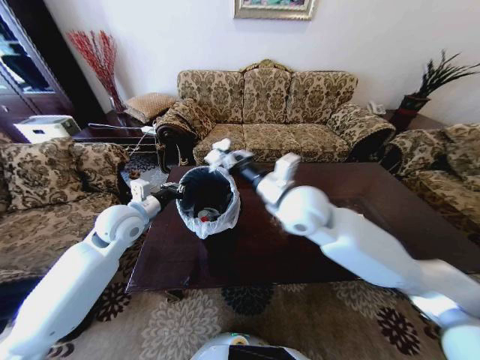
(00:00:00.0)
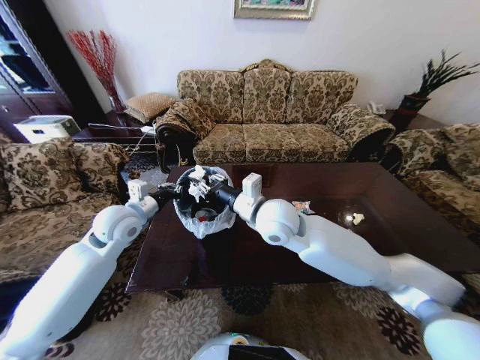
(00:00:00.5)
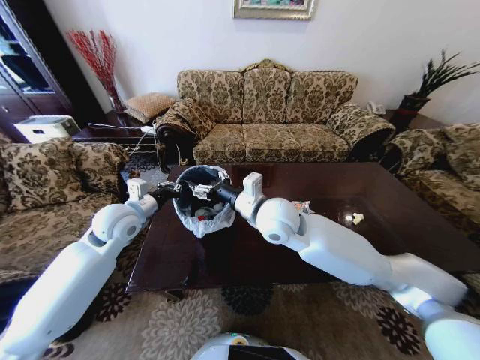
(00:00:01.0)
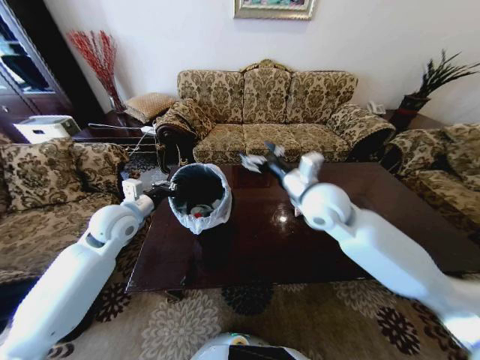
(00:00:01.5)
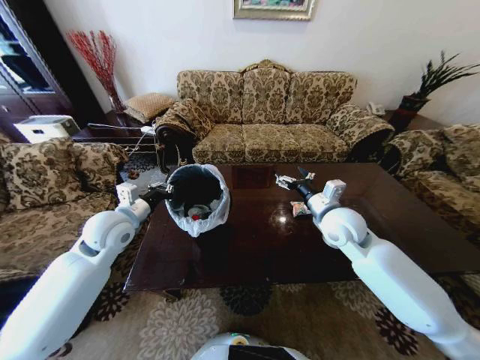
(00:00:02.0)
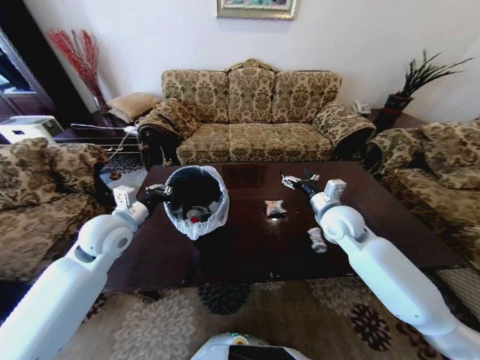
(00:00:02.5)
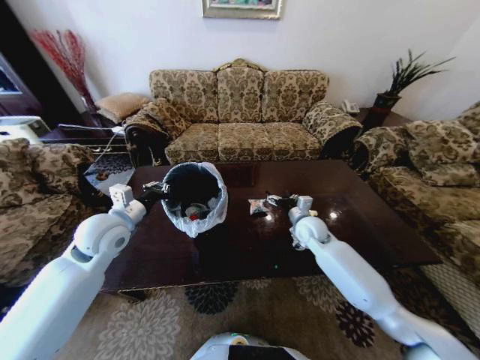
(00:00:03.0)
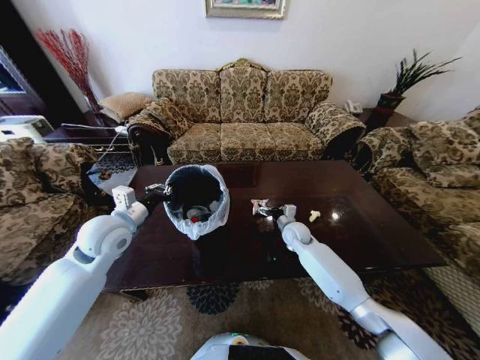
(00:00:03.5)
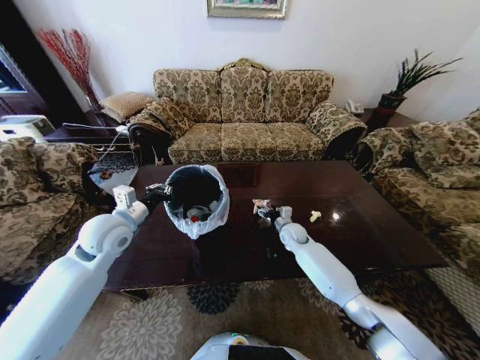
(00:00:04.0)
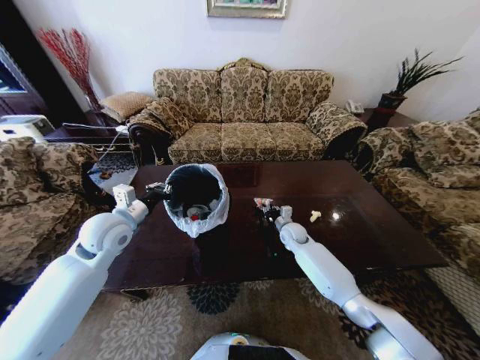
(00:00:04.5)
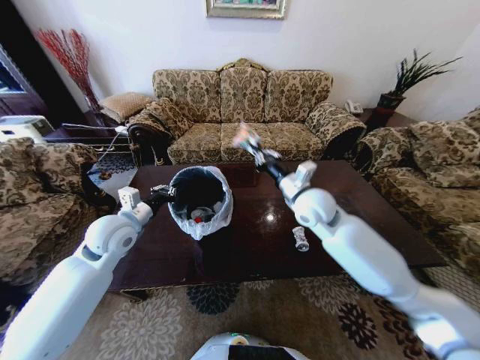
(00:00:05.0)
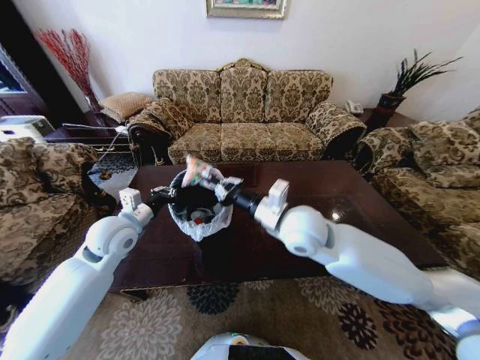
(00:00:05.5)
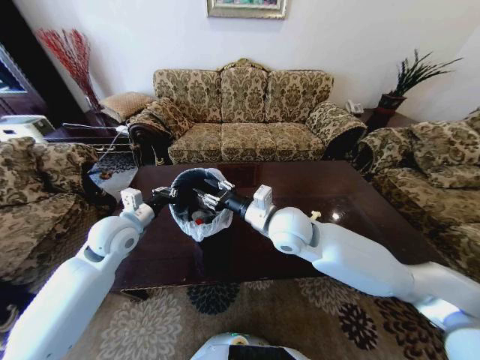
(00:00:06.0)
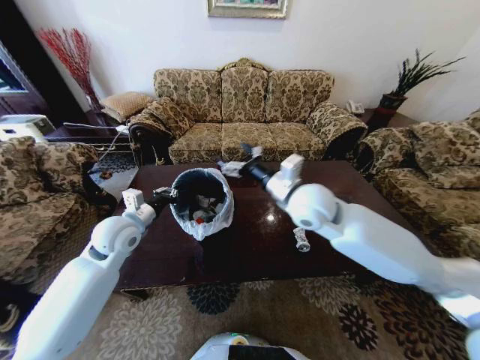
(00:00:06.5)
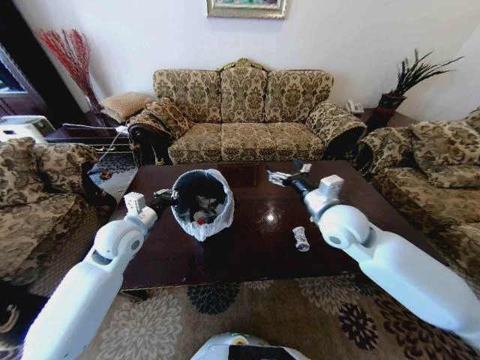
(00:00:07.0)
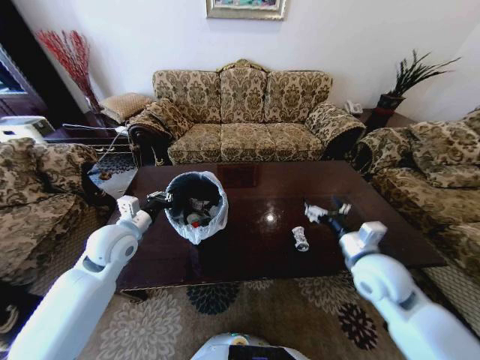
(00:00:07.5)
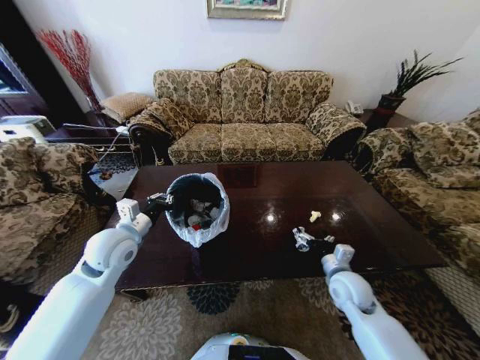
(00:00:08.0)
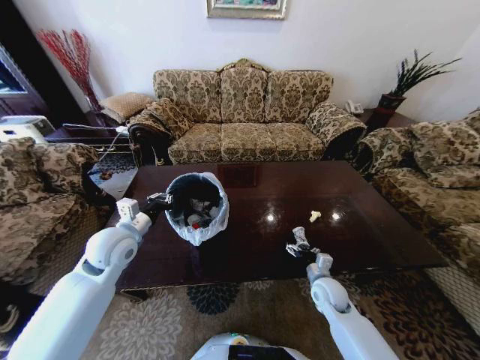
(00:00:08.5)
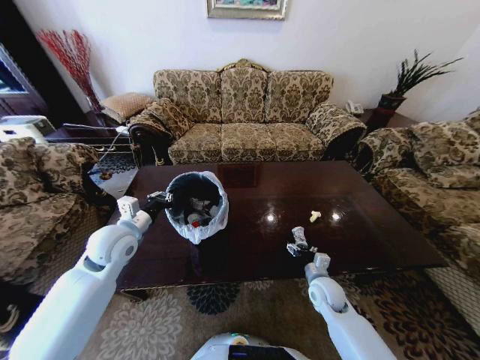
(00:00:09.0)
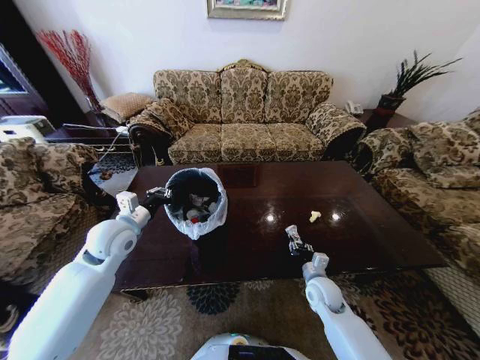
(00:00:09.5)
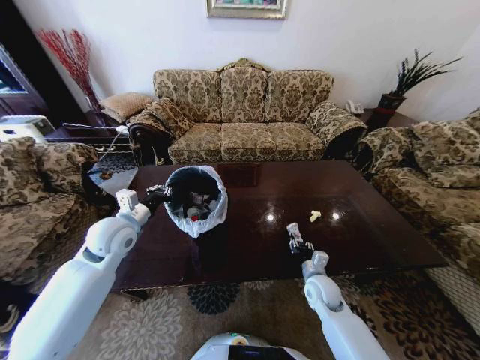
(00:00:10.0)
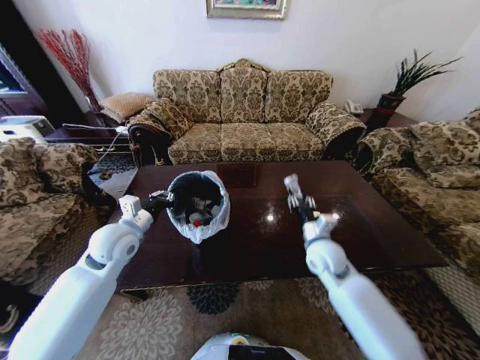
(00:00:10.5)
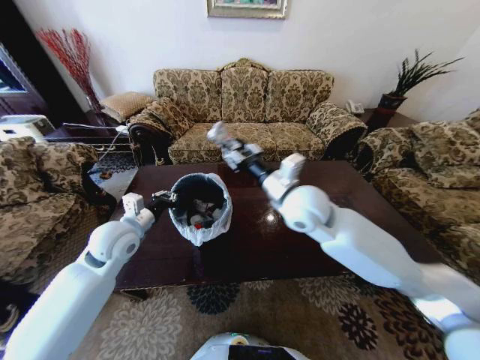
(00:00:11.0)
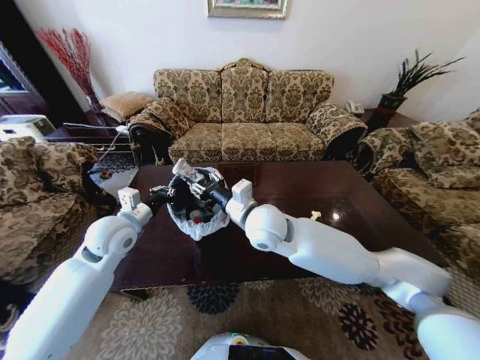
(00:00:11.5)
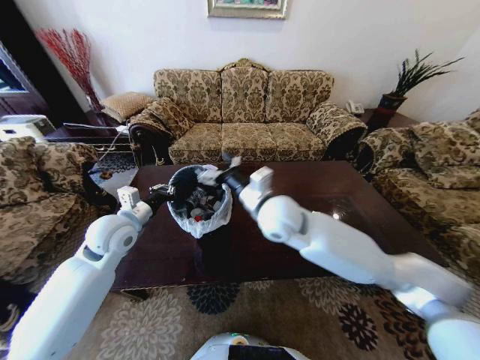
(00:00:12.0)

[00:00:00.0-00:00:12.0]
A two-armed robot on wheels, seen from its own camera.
Task of the whole recording: Move to the front of the table and place the trash on the table into the trash bin.
00:00:00.0 to 00:00:02.0: The right gripper goes approximately 15 cm to the right and downward, and opens.
00:00:02.0 to 00:00:04.0: The right gripper moves downward and forward, roughly 25 cm.
00:00:04.0 to 00:00:06.0: The right gripper goes roughly 30 cm upward, backward and to the left, and closes its fingers.
00:00:06.0 to 00:00:08.0: The right gripper travels to the right and downward by some 30 cm, and opens.
00:00:08.0 to 00:00:10.0: The right gripper shifts approximately 5 cm downward, and closes up.
00:00:10.0 to 00:00:12.0: The right gripper moves upward and to the left, roughly 35 cm, and opens its fingers.

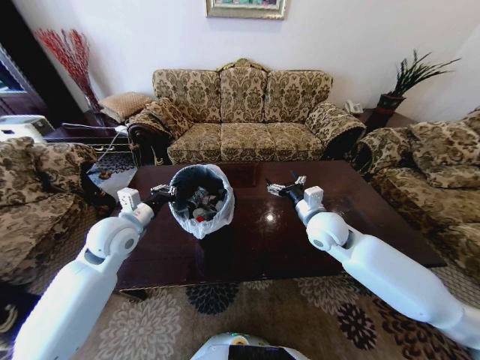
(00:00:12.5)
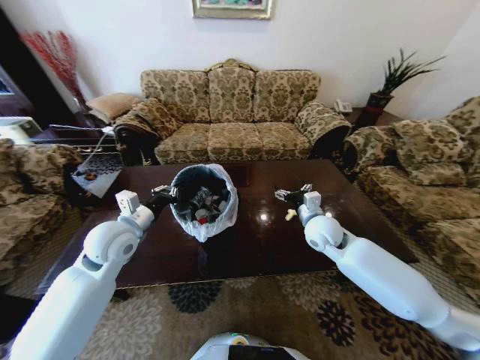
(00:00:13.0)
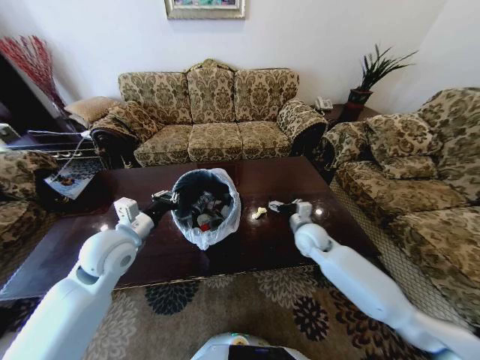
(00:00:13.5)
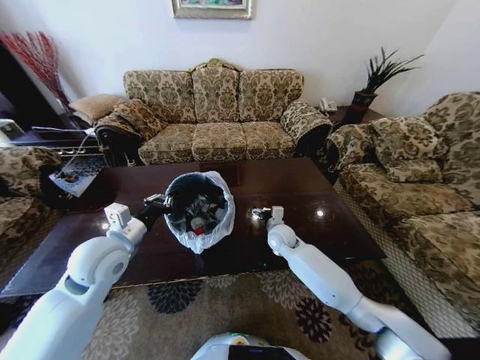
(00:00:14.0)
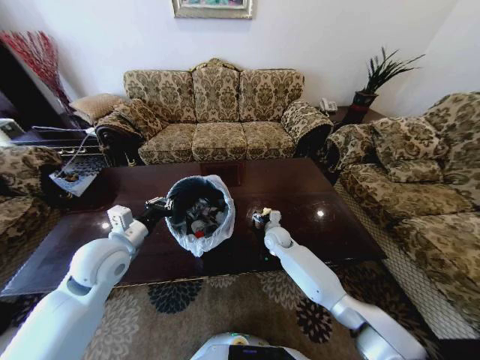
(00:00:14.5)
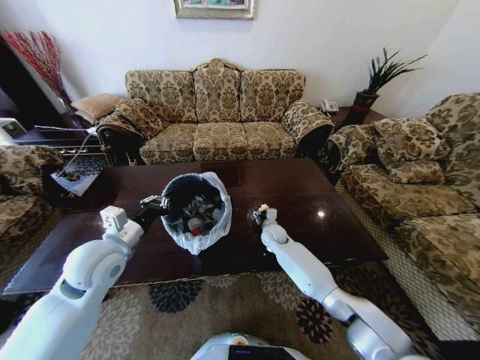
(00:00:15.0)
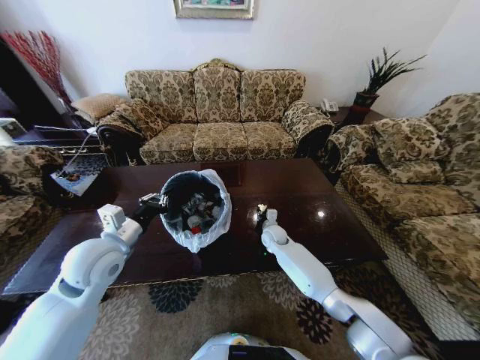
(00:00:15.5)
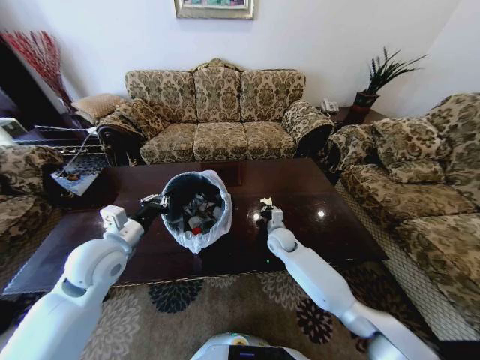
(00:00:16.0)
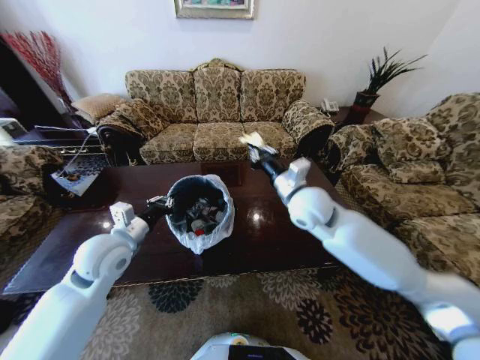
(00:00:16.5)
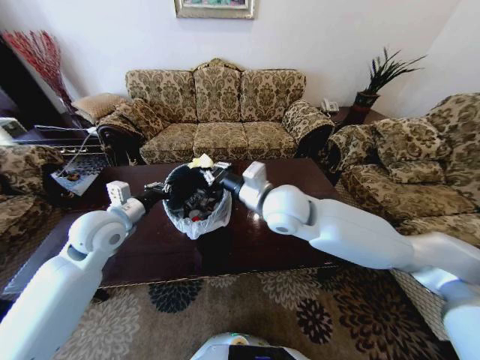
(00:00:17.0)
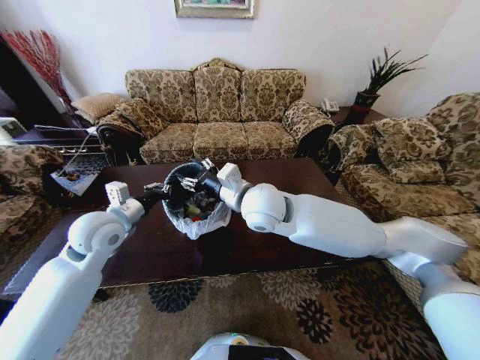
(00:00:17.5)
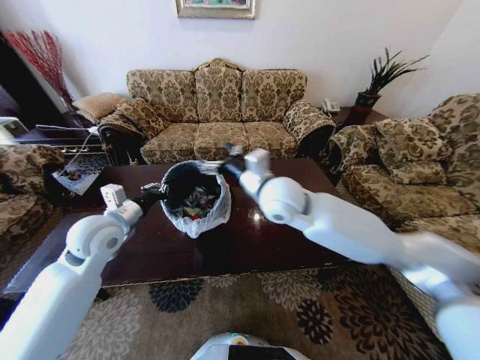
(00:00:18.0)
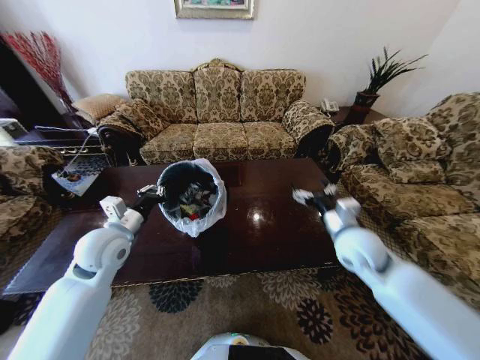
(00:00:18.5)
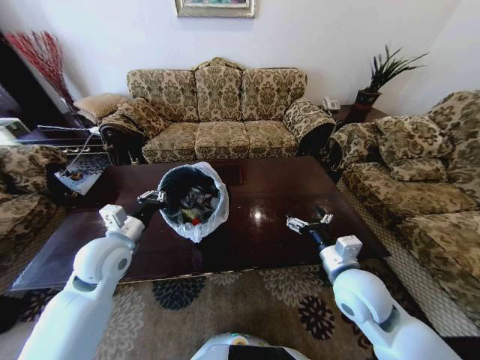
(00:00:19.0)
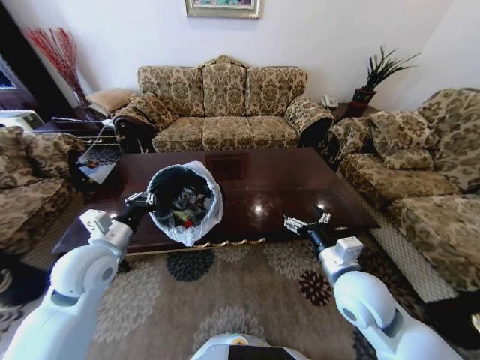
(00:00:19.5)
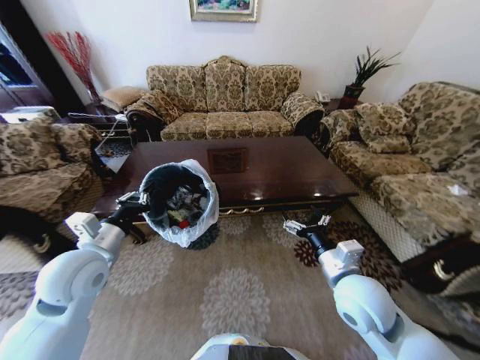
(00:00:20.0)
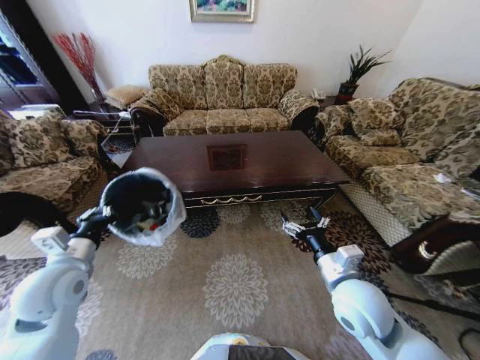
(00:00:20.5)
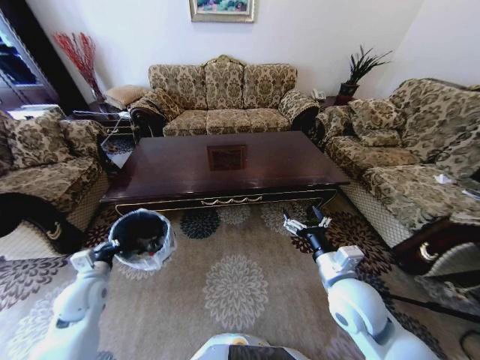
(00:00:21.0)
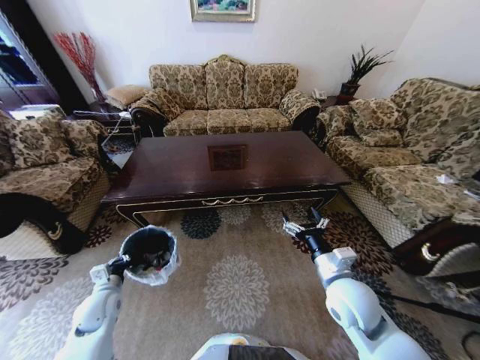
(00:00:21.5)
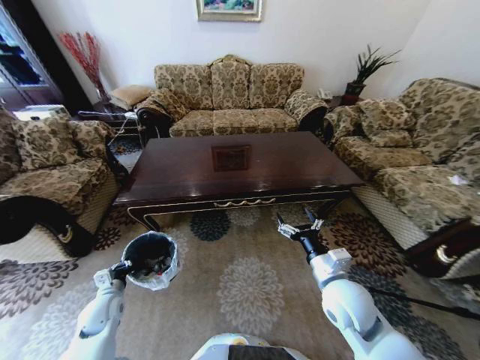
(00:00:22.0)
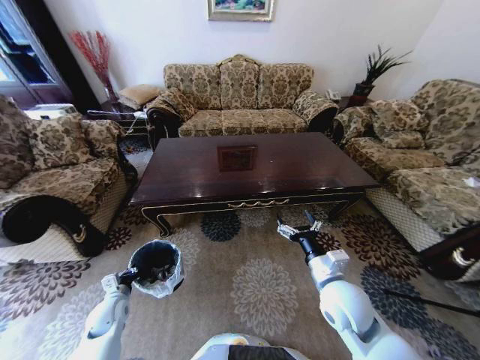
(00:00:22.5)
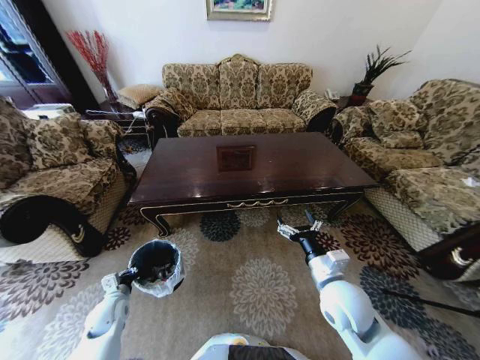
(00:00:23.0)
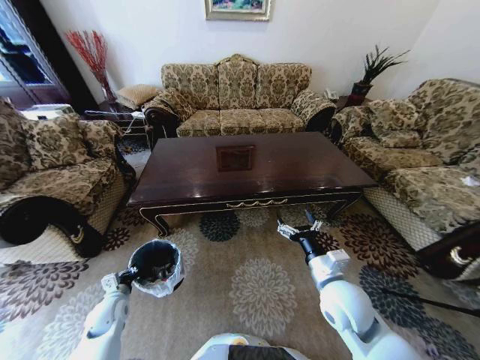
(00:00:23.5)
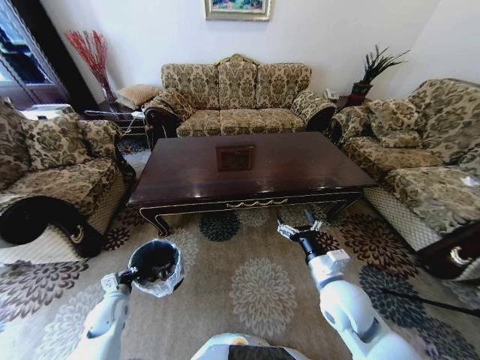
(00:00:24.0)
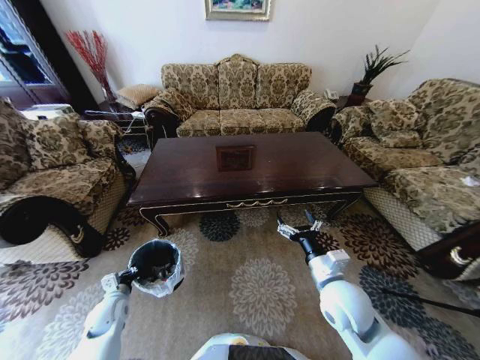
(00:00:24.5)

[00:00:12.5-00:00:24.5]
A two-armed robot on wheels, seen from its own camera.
Task of the whole recording: Move to the front of the table and place the trash on the table into the trash bin.
00:00:12.5 to 00:00:14.5: The right gripper travels downward, forward and to the left by some 25 cm, while the left gripper moves backward, about 5 cm.
00:00:14.5 to 00:00:16.5: The right gripper travels upward by roughly 25 cm, and closes its fingers.
00:00:16.5 to 00:00:18.5: The right gripper travels to the right, downward and backward by roughly 15 cm, and opens.
00:00:18.5 to 00:00:20.5: The right gripper goes approximately 10 cm backward, while the left gripper travels backward and to the left by some 10 cm.
00:00:20.5 to 00:00:22.5: The left gripper shifts roughly 25 cm downward.
00:00:22.5 to 00:00:24.5: The two grippers keep their place.

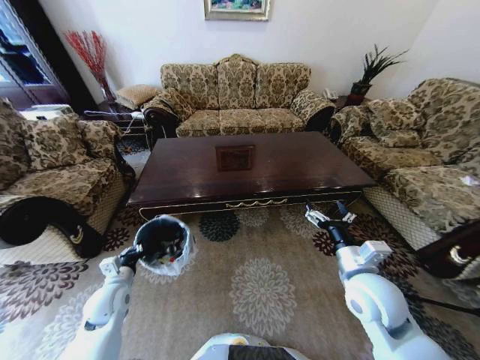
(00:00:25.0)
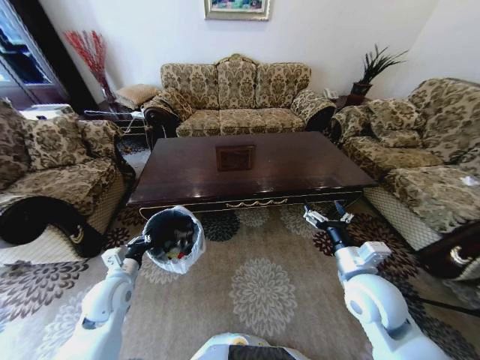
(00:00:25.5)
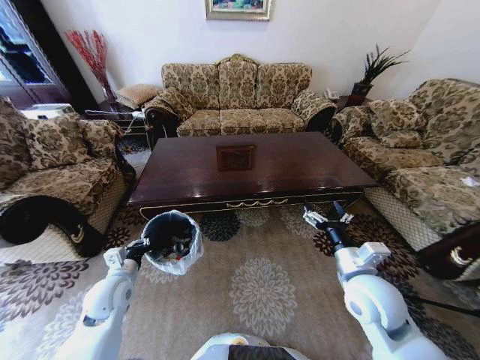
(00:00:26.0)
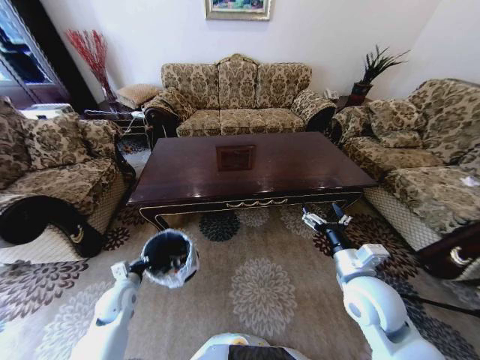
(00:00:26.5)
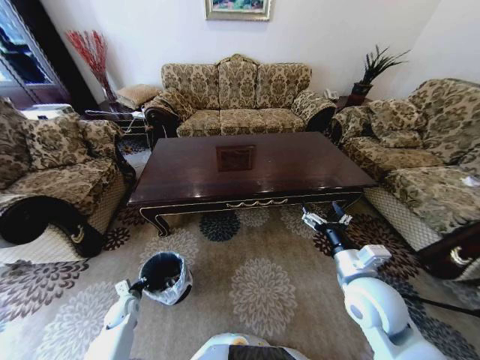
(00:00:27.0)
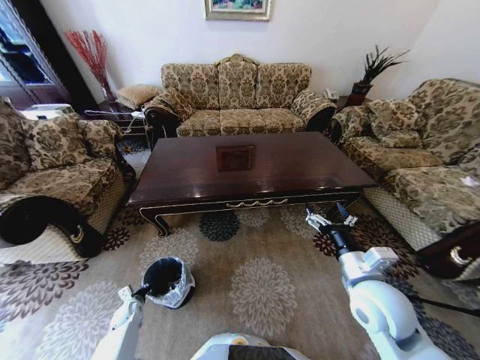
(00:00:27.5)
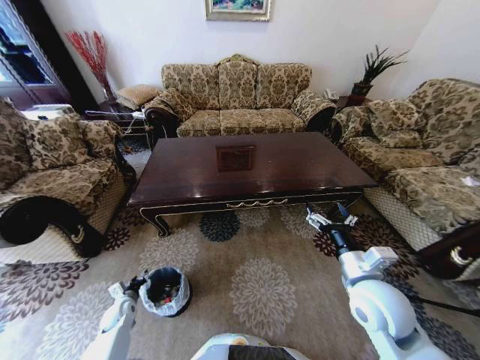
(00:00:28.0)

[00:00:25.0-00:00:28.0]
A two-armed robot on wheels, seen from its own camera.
Task of the whole recording: Move to the front of the table and place the trash on the table into the trash bin.
00:00:26.5 to 00:00:28.0: The left gripper shifts roughly 15 cm downward and to the left, and opens its fingers.
